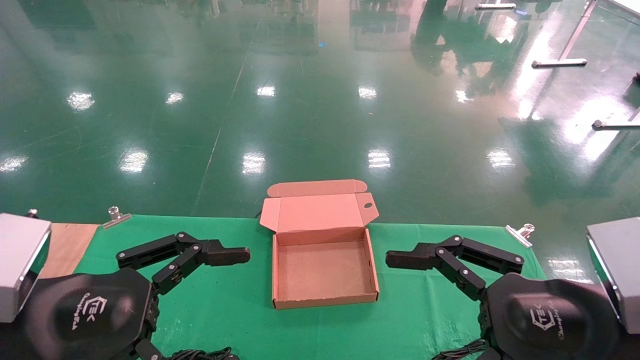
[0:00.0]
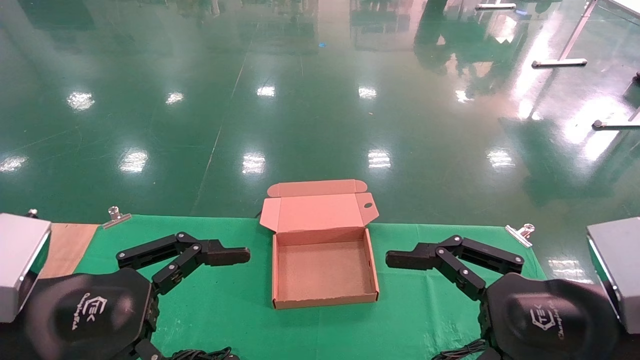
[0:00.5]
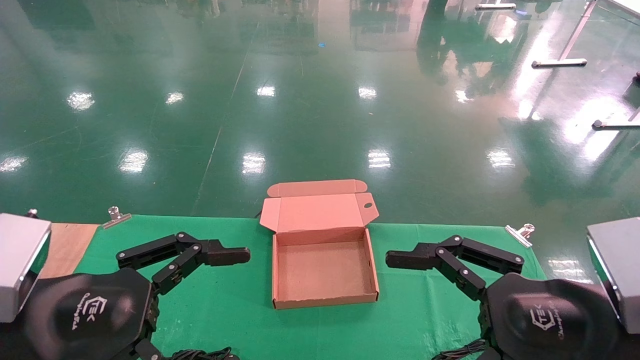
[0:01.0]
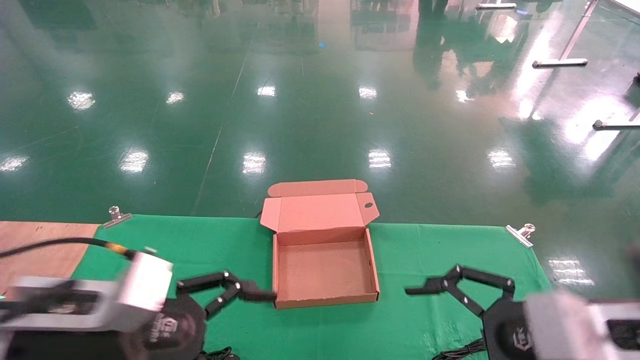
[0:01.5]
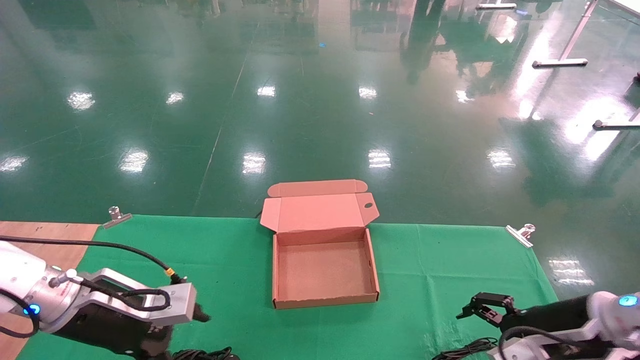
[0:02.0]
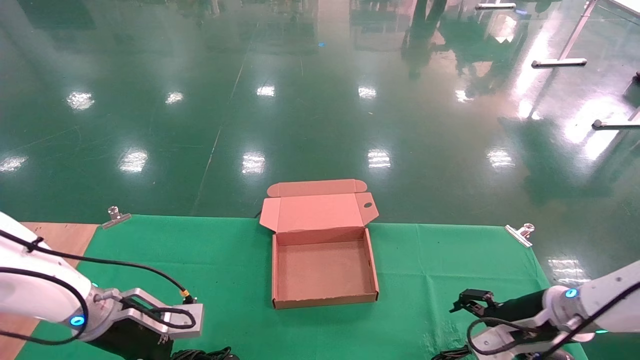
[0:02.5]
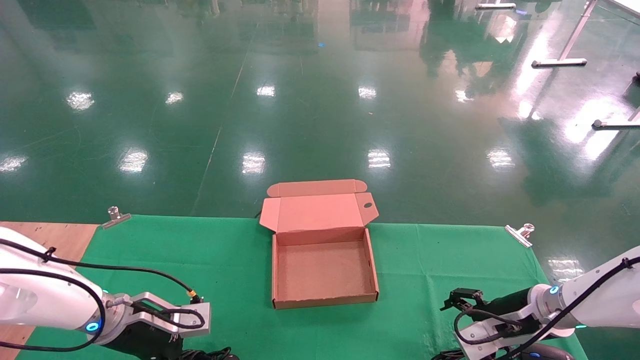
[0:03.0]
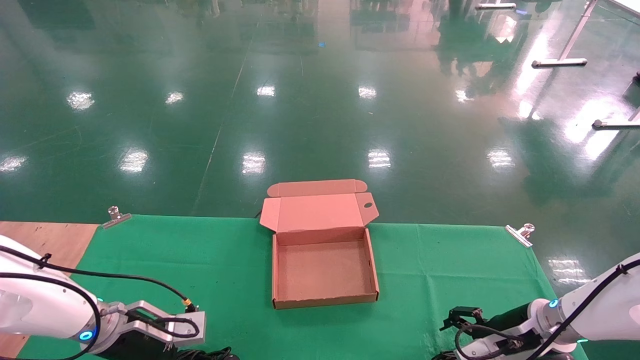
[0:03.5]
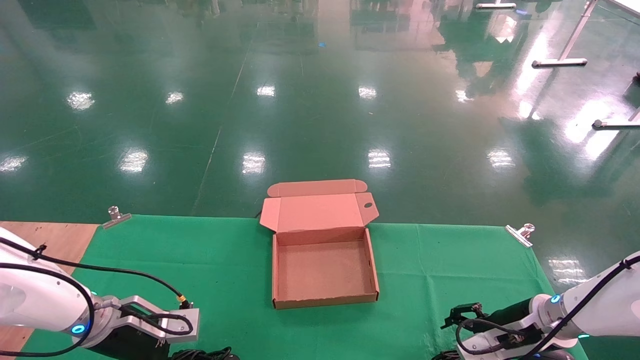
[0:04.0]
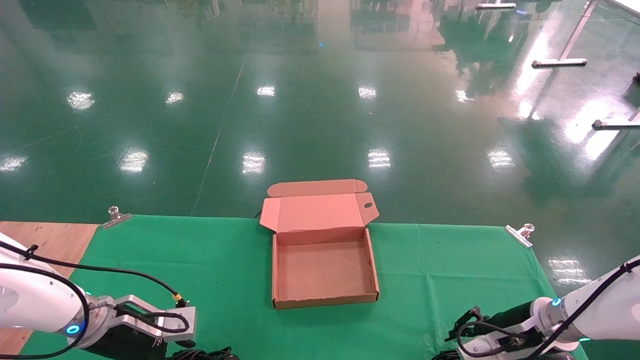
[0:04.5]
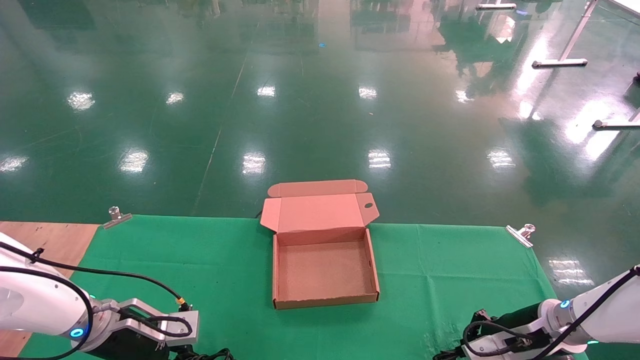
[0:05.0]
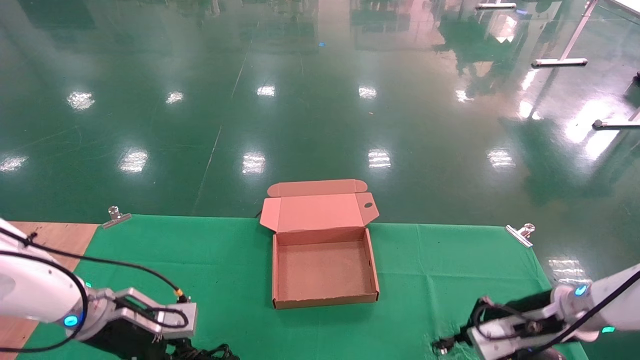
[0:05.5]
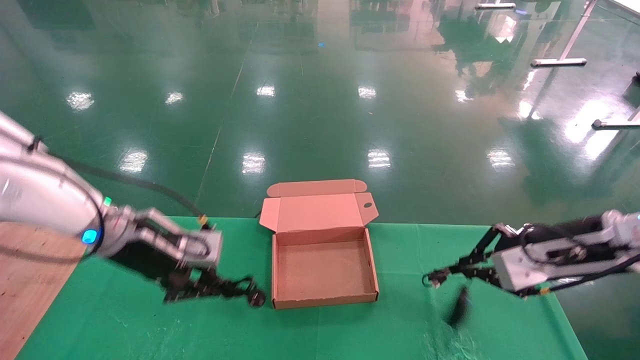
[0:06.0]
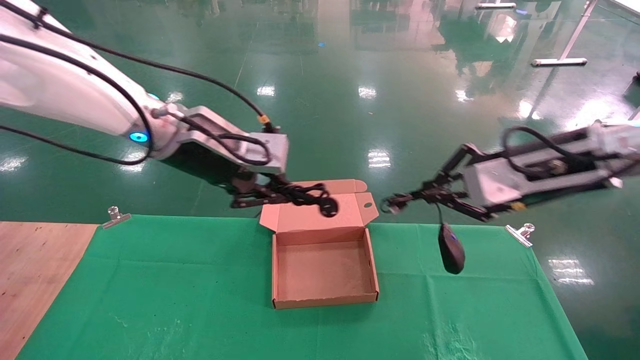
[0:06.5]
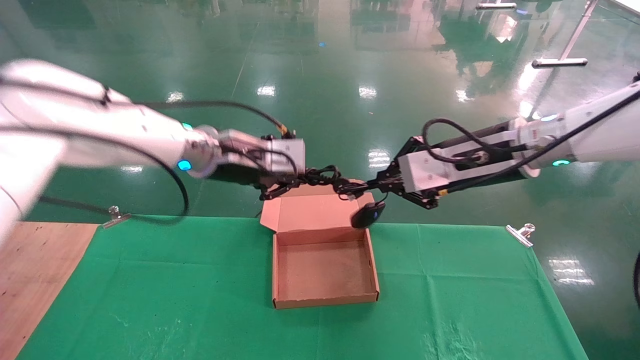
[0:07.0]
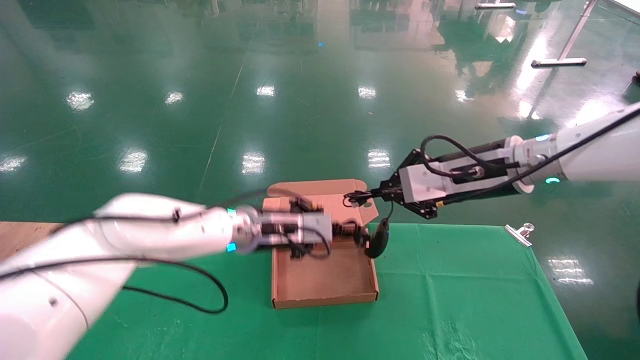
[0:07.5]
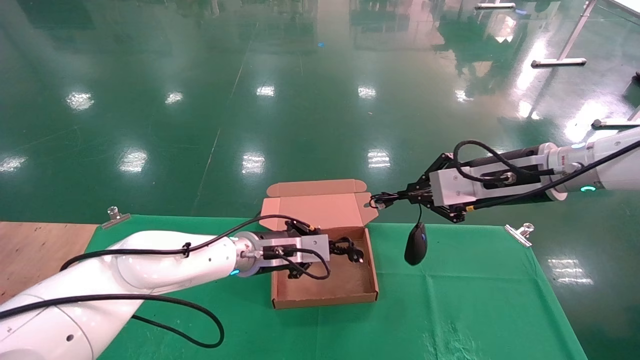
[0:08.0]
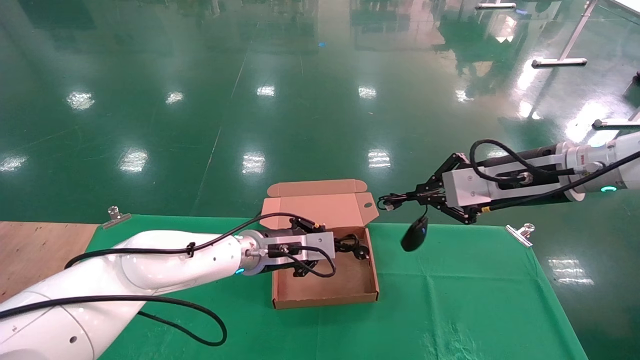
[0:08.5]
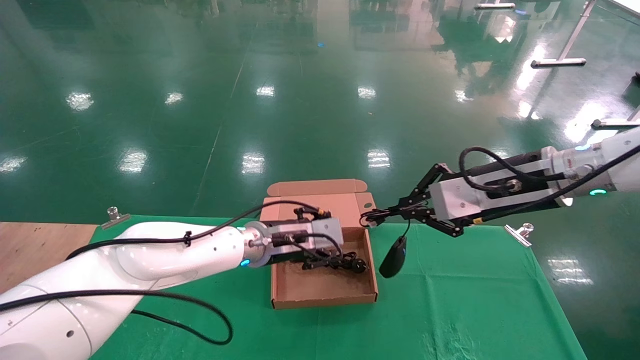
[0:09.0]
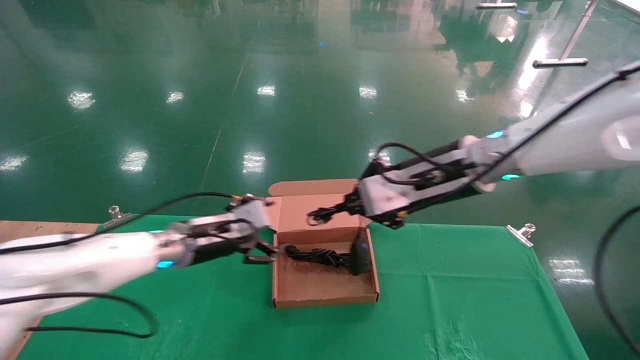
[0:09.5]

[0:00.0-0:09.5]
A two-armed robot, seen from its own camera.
Step, 0:02.5 to 0:06.0: Grab and lift both the mouse and power cord from the accessory packaging area at the same time.
0:00.0 to 0:02.0: The left gripper goes some 20 cm forward and downward. Meanwhile the right gripper travels forward, downward and to the right by roughly 20 cm.
0:02.0 to 0:04.0: The right gripper goes approximately 10 cm forward and downward, while the left gripper heads downward and forward, covering roughly 10 cm.
0:04.0 to 0:05.5: The left gripper closes up. Meanwhile the right gripper closes.
0:05.5 to 0:07.5: The left gripper shifts about 20 cm to the right and upward; the right gripper heads upward and to the left, covering about 25 cm.
0:07.5 to 0:09.5: The left gripper travels to the left by about 10 cm, and opens its fingers; the right gripper moves to the left, approximately 5 cm.

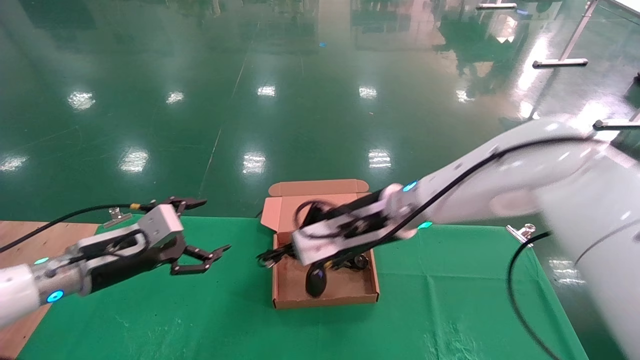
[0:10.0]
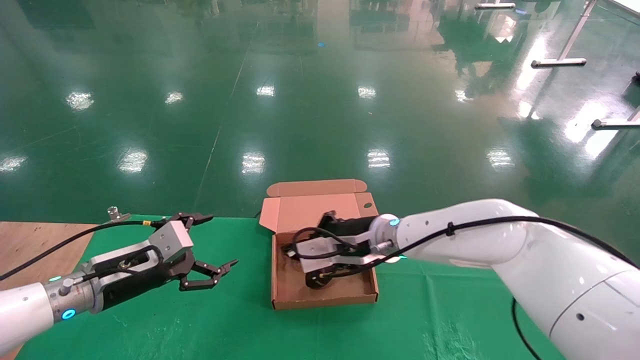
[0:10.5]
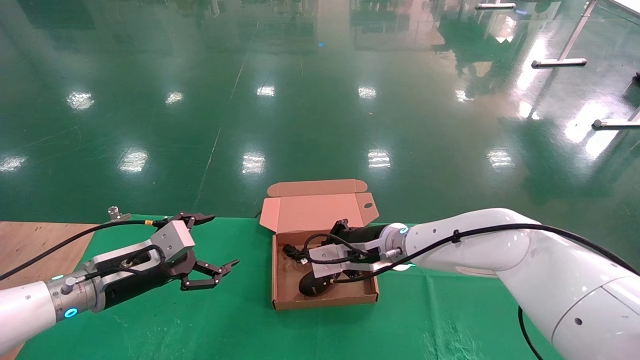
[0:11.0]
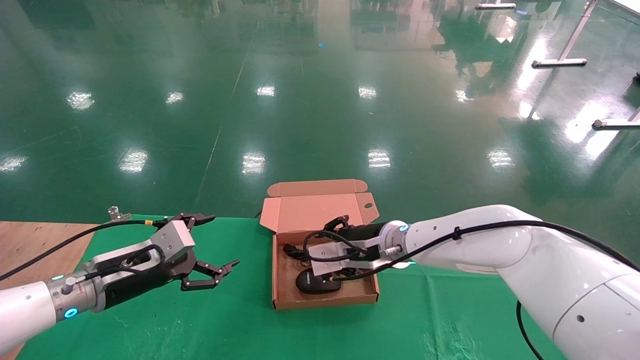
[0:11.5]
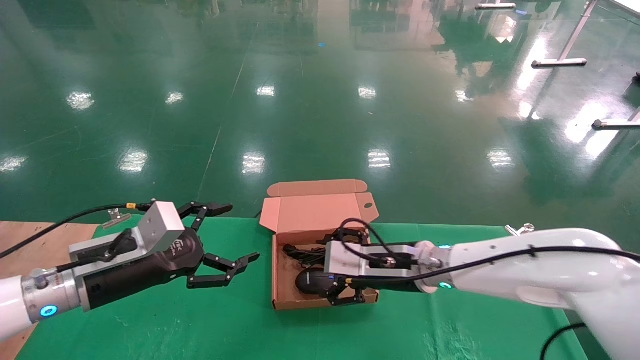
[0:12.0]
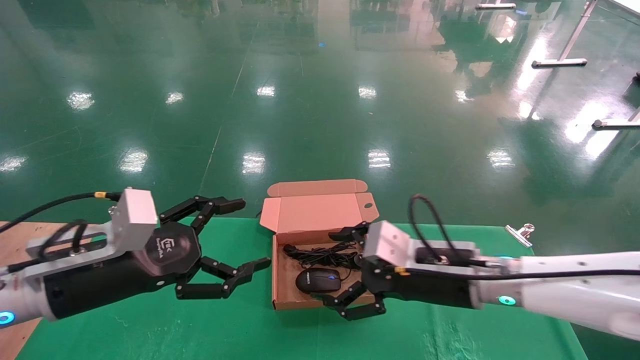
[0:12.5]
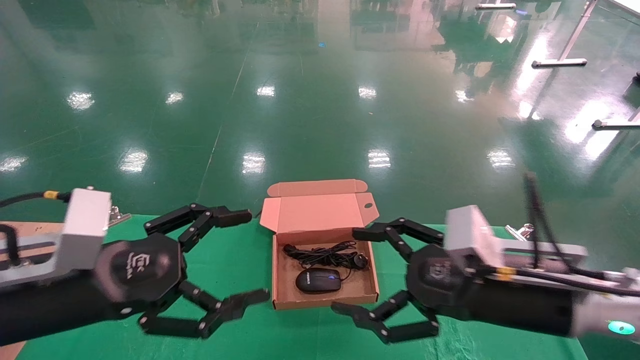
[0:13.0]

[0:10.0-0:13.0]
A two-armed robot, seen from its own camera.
Step, 0:10.0 to 0:12.0: Place the mouse and power cord into the box.
0:10.0 to 0:11.5: The right gripper moves downward, approximately 10 cm.
0:11.5 to 0:13.0: The left gripper is displaced backward and upward by approximately 15 cm. The right gripper heads backward and to the right, covering some 20 cm, and opens up.
